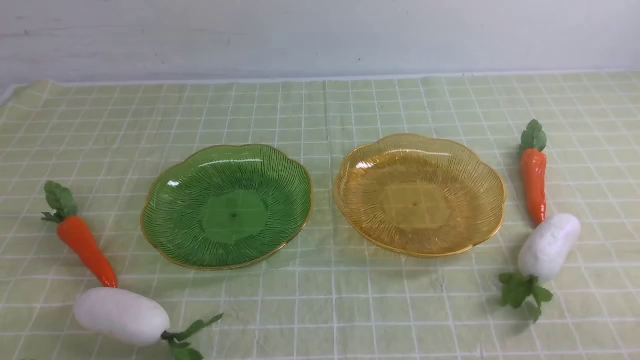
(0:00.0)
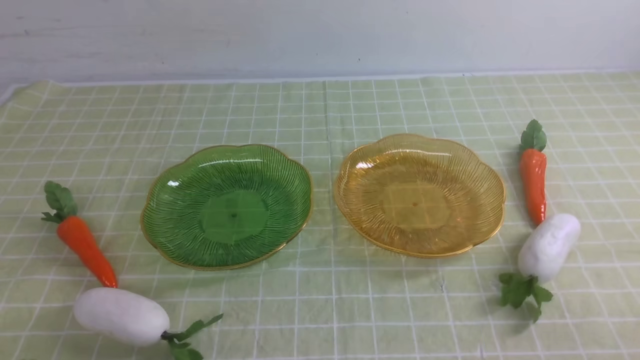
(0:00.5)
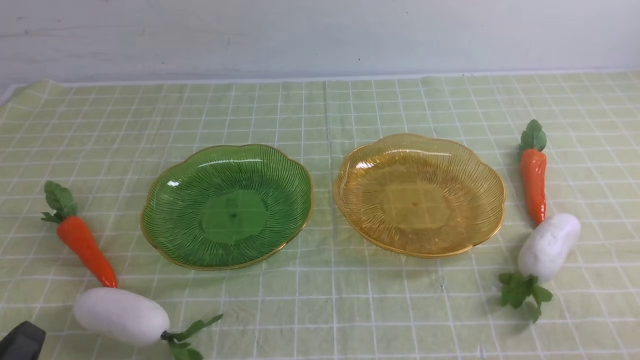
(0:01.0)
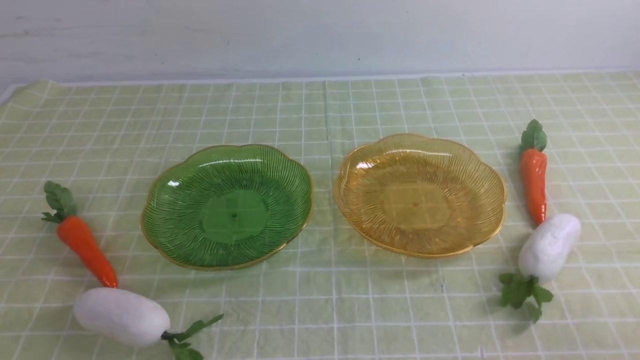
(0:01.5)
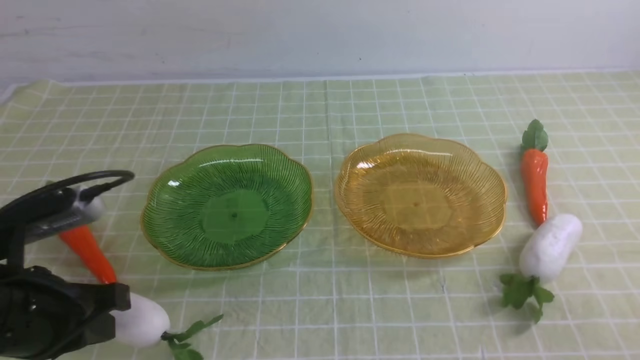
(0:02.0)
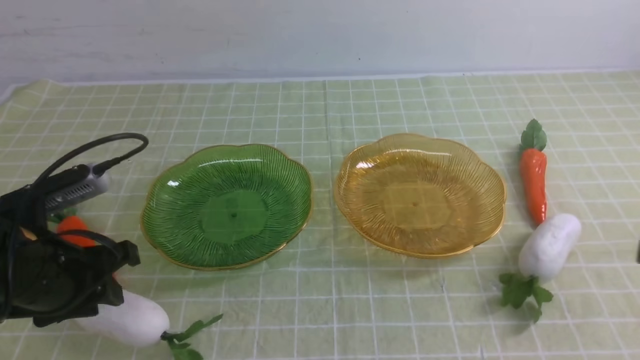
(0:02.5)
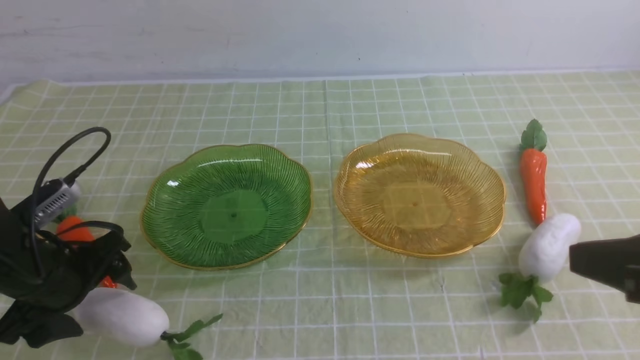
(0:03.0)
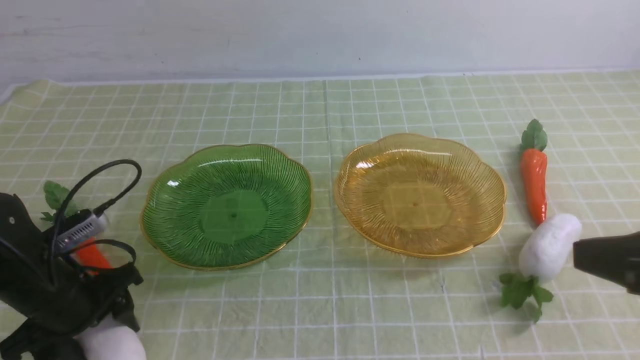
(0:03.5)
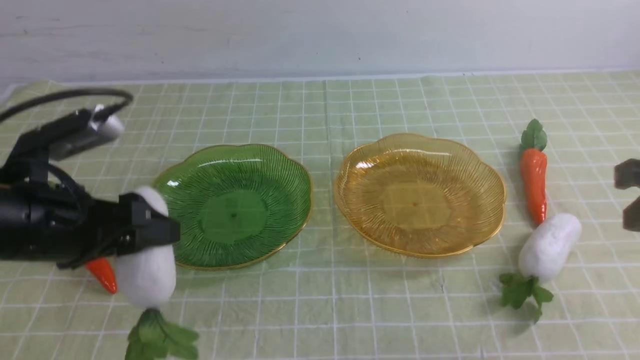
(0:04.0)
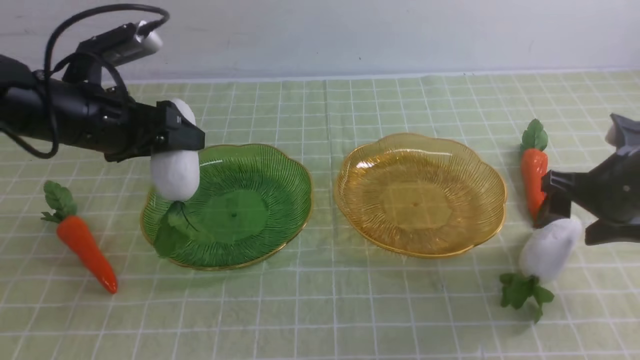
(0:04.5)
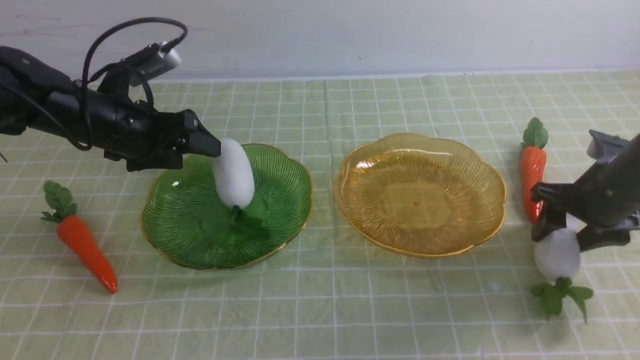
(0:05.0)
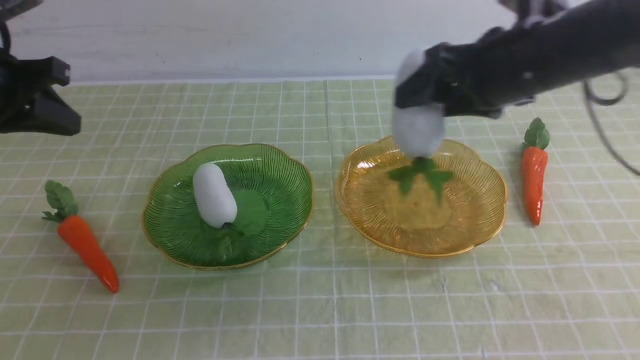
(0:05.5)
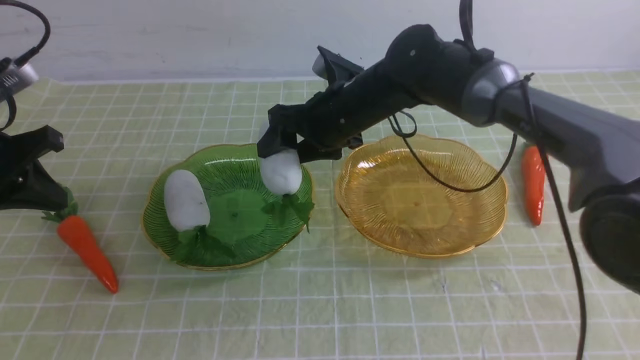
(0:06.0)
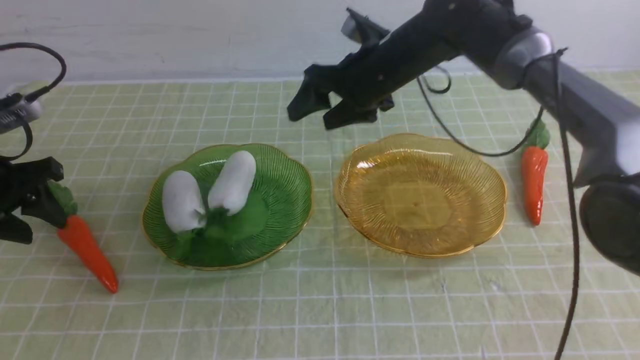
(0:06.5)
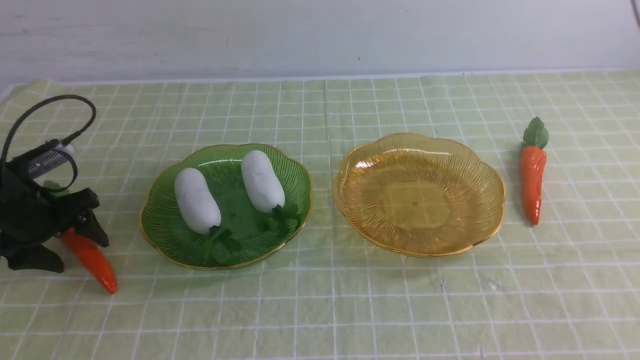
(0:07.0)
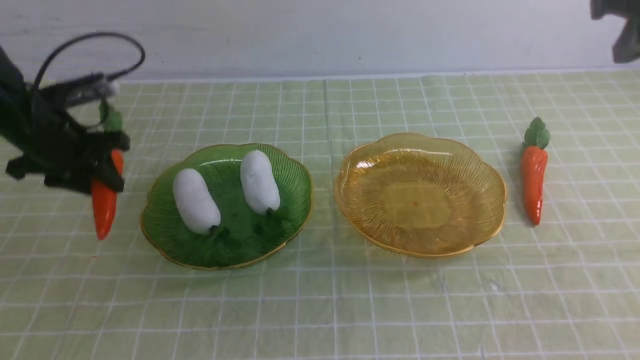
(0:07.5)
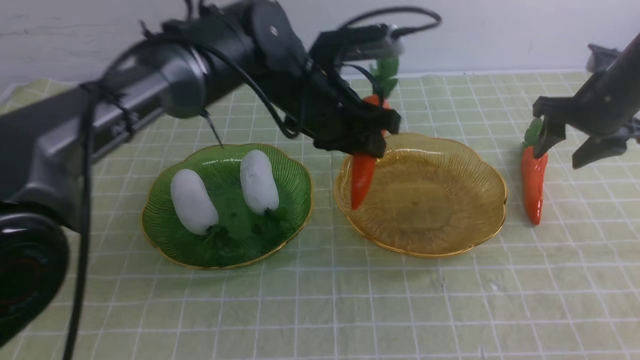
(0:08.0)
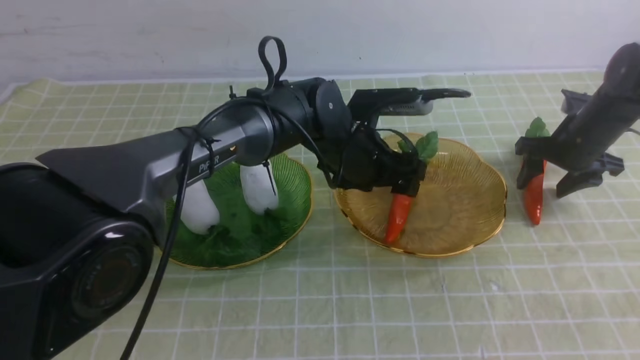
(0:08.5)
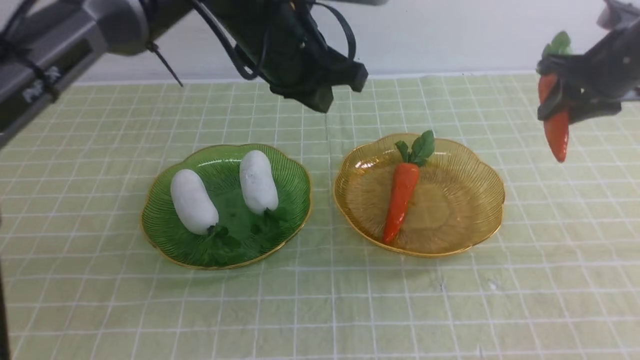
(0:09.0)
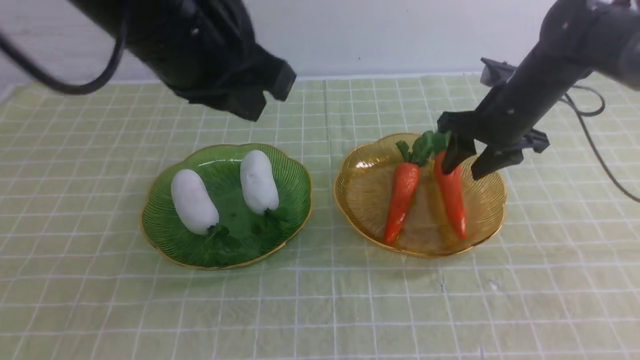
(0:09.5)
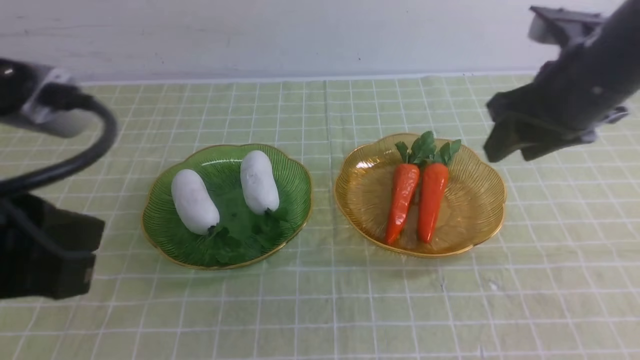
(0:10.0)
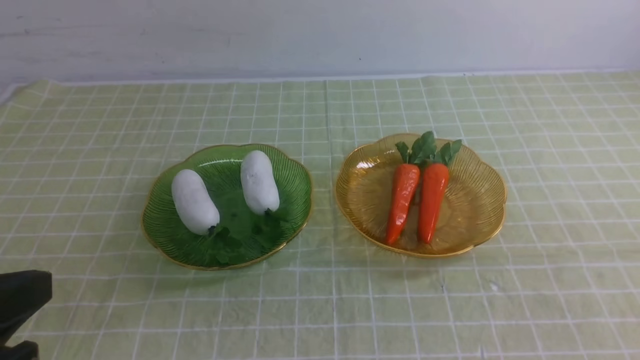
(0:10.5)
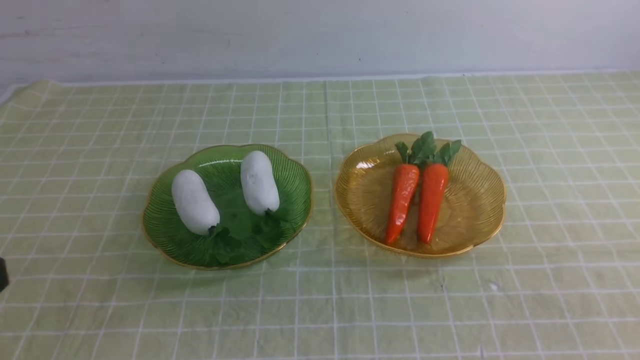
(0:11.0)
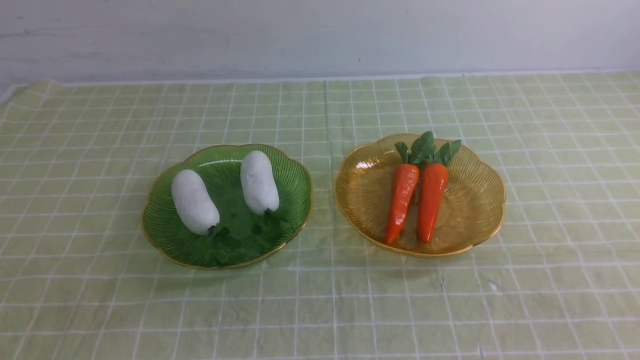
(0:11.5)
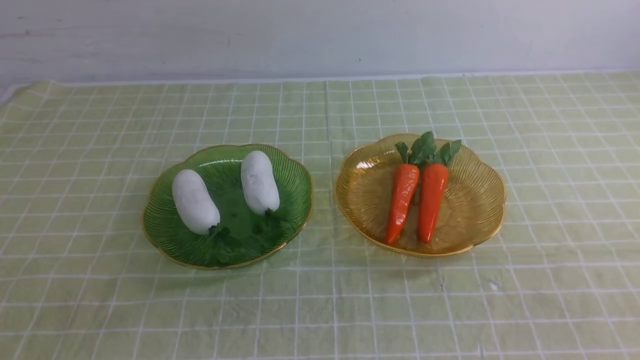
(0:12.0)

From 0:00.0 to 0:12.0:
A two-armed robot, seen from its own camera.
Step, from 0:00.0 to 0:05.0: use the left arm to grab a radish and put it into the left plate.
Step, from 0:05.5 to 0:06.5: use the right arm to grab a radish and put it into the left plate.
Step, from 0:07.0 to 0:08.5: use the left arm to grab a carrot and put it into the right plate.
Step, from 0:09.0 to 0:11.0: use the right arm to grab a carrot and put it into the right plate.
From 0:00.0 to 0:02.0: The left gripper goes approximately 15 cm forward and upward.
From 0:02.0 to 0:04.0: The left gripper travels forward by some 10 cm, reaches some 10 cm downward, then returns, and opens up.
From 0:04.0 to 0:06.0: The right gripper goes about 35 cm to the left and forward, and opens its fingers, while the left gripper shifts some 10 cm to the left and forward, and closes.
From 0:06.0 to 0:08.0: Both grippers travel together to the right, some 30 cm. The right gripper closes, then opens again. Meanwhile the left gripper opens.
From 0:08.0 to 0:10.0: The right gripper heads backward, upward and to the left, covering approximately 25 cm. Meanwhile the left gripper is displaced backward and to the left by approximately 35 cm, and closes.
From 0:10.0 to 0:12.0: The left gripper is displaced backward, downward and to the left by roughly 15 cm, while the right gripper is displaced backward by about 30 cm, and closes.
